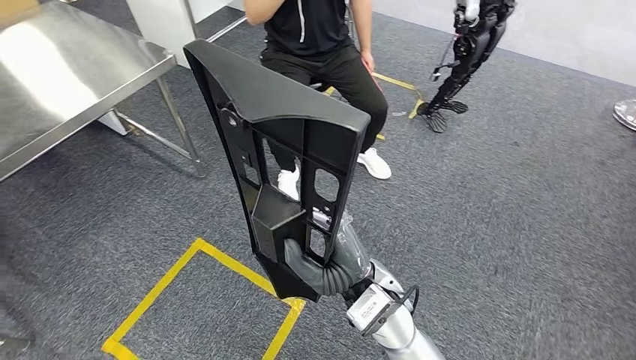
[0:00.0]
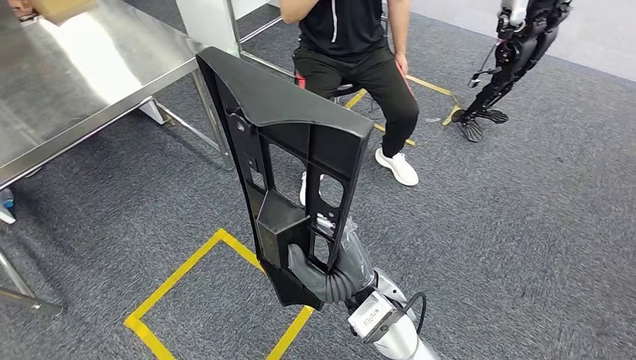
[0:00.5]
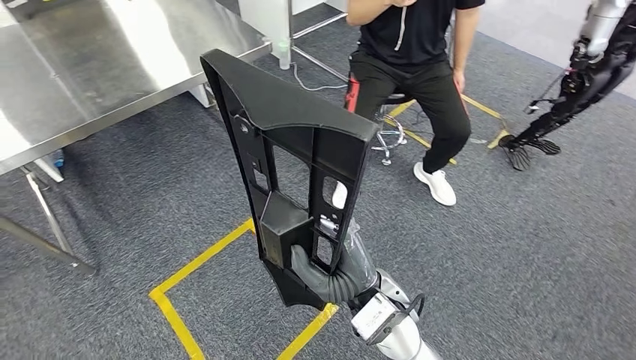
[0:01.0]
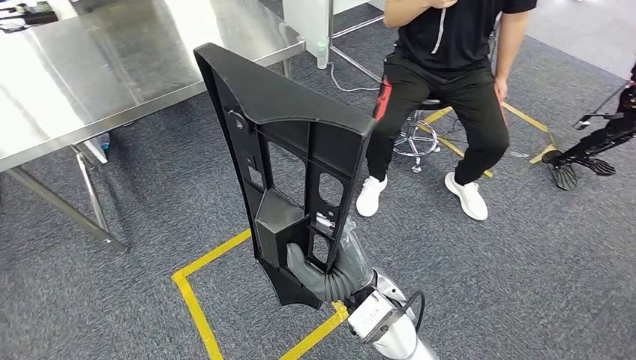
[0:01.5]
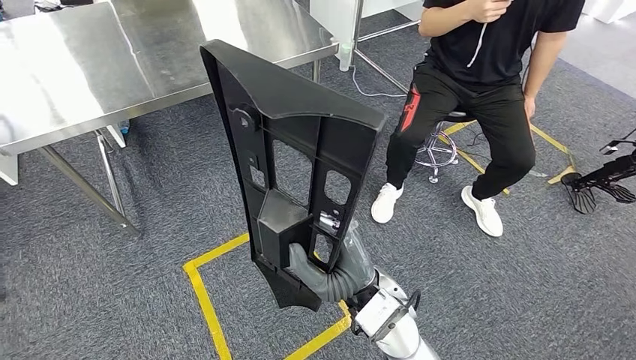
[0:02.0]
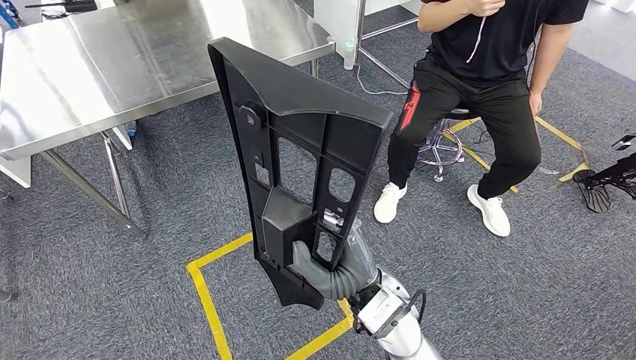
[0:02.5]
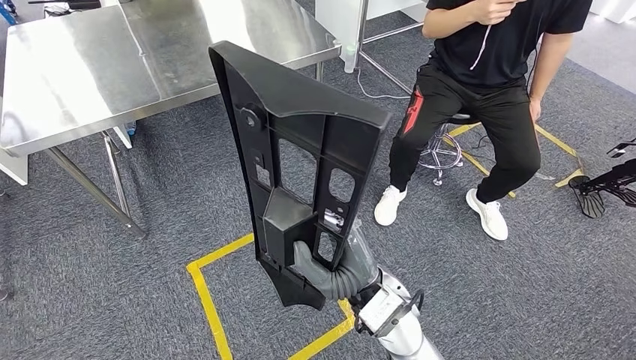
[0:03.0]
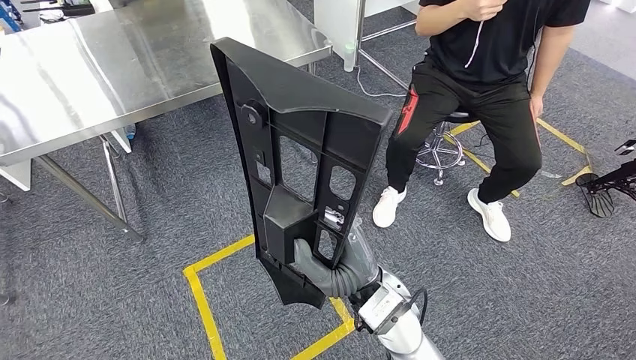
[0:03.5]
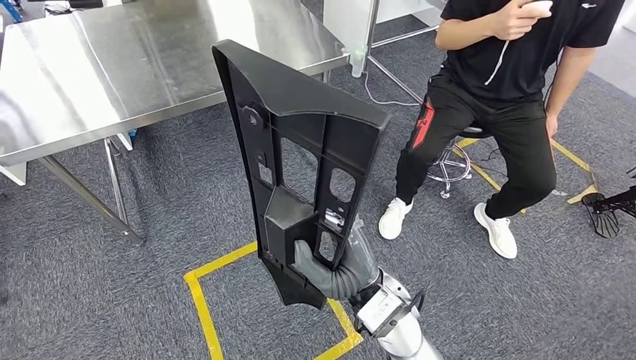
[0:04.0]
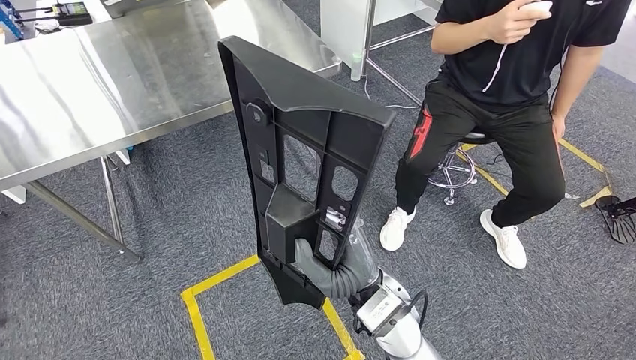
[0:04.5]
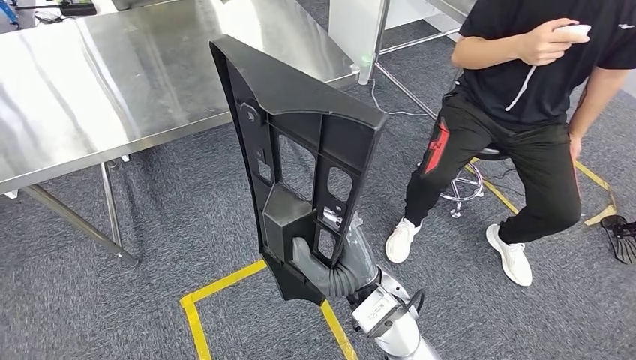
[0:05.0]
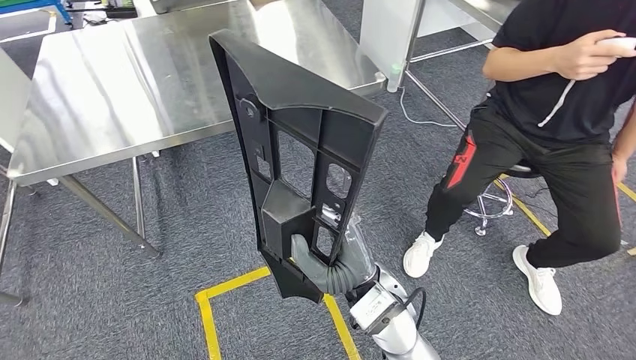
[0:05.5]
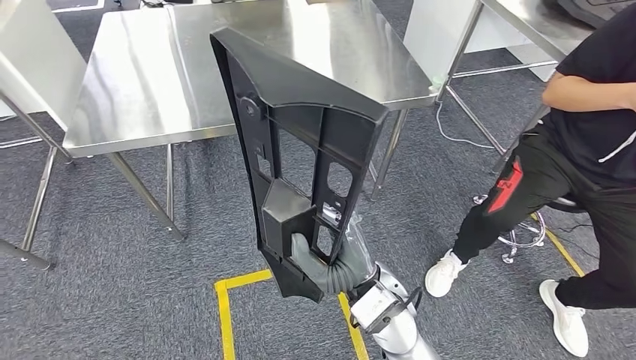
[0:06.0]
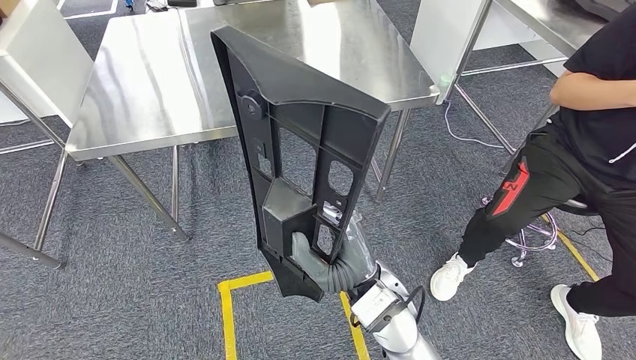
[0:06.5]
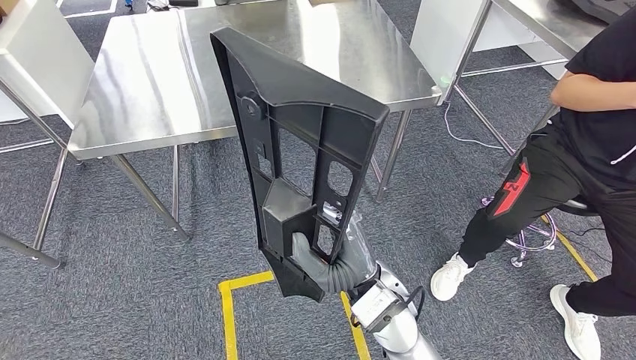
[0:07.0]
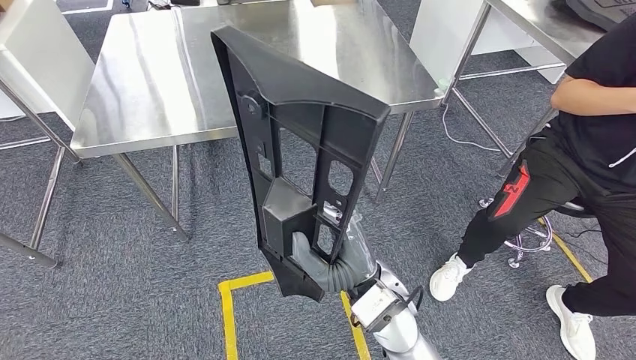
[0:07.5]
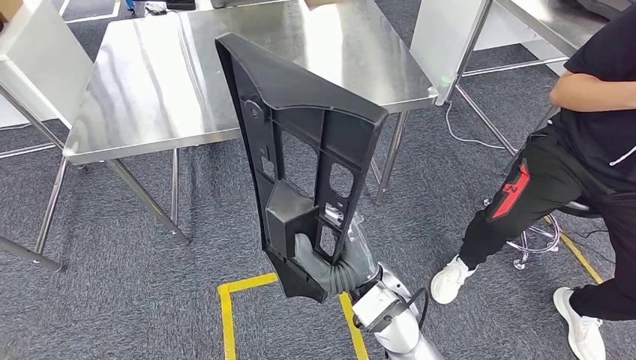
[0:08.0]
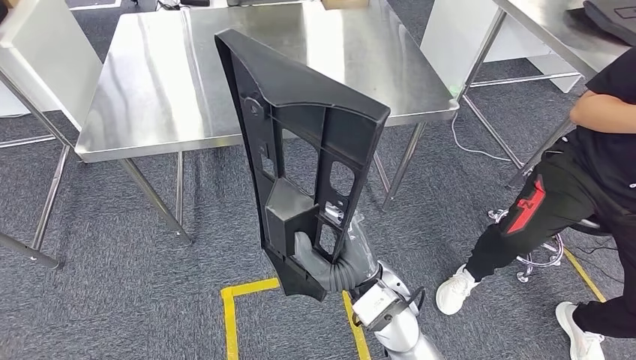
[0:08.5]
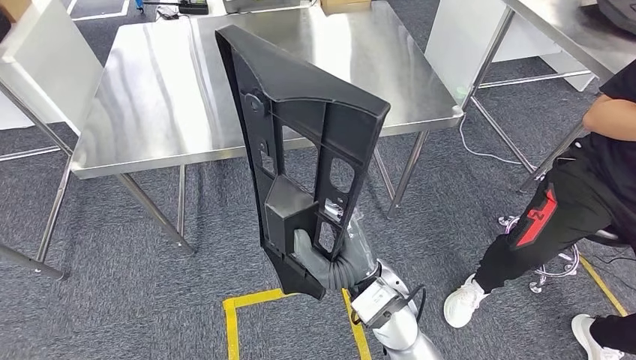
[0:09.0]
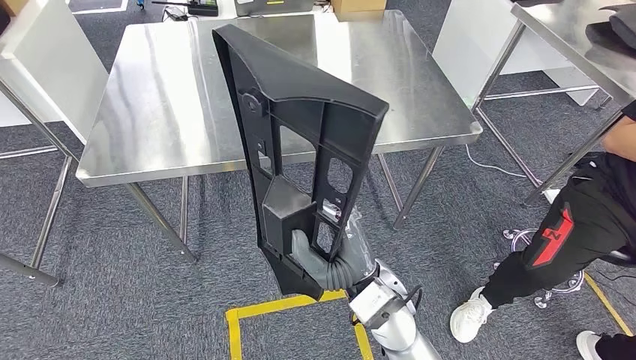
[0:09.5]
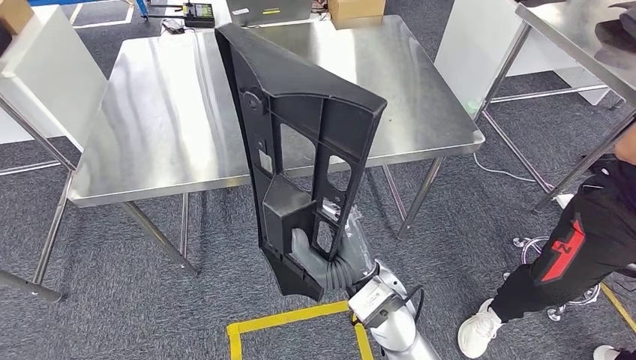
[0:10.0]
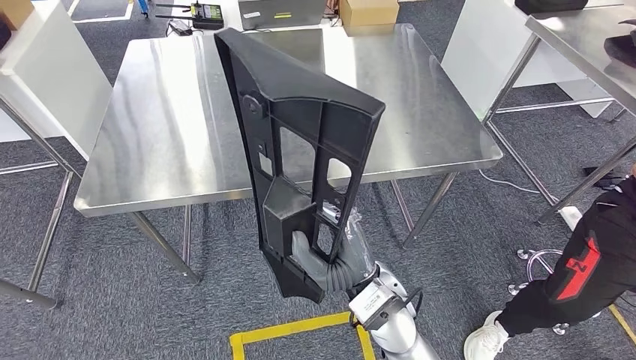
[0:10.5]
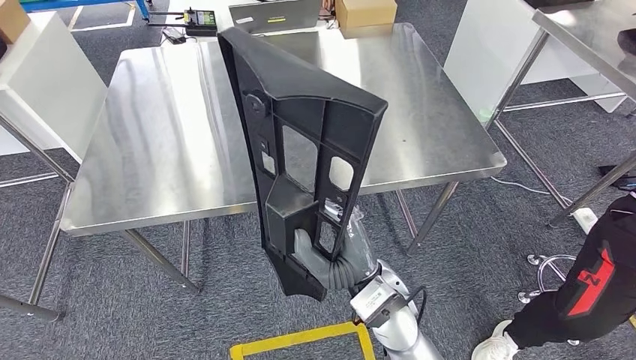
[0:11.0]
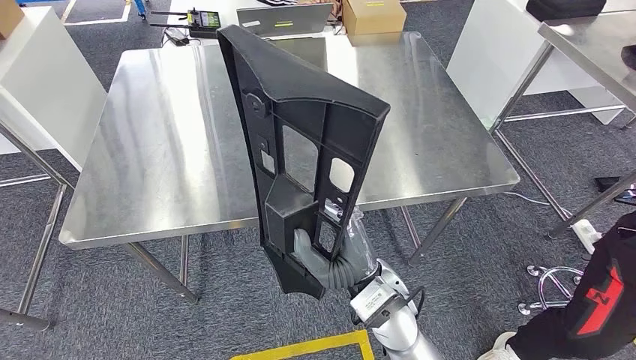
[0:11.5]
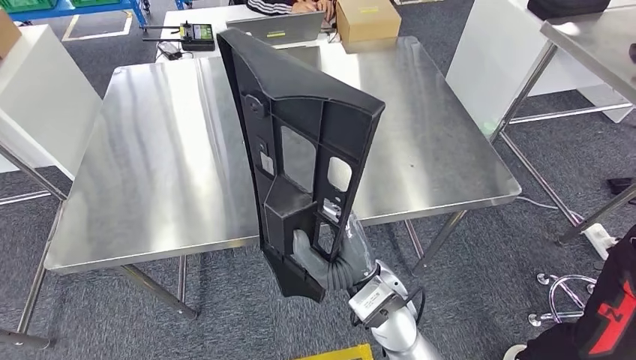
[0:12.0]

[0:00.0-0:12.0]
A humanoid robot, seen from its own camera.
Step, 0:00.0 to 0:09.0: Move the large material to the workbench.

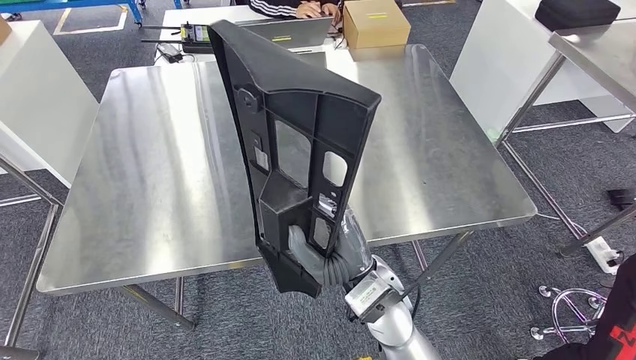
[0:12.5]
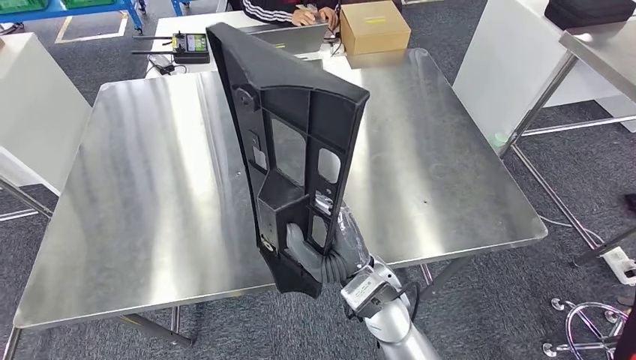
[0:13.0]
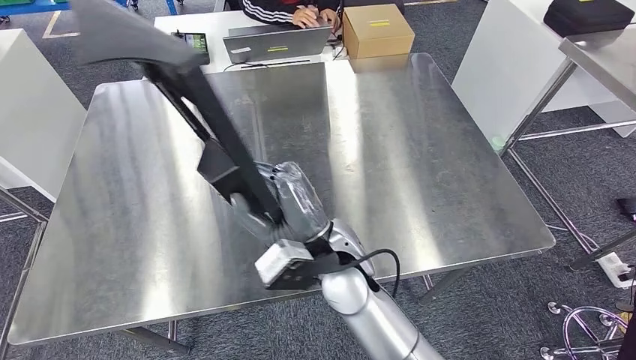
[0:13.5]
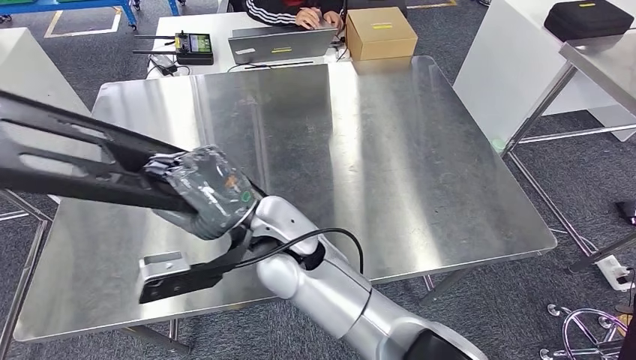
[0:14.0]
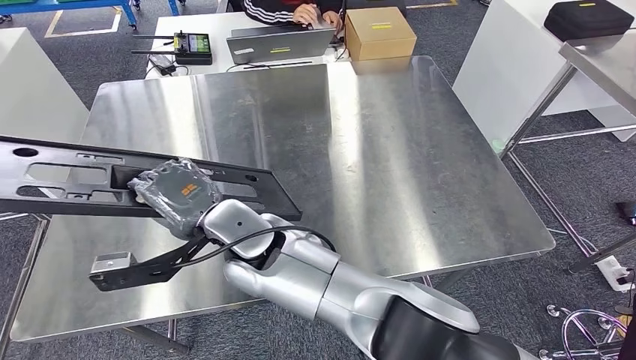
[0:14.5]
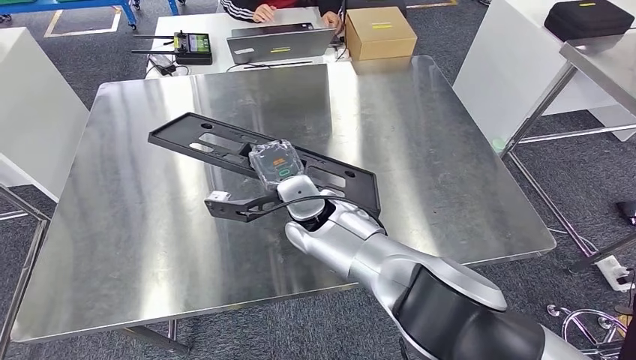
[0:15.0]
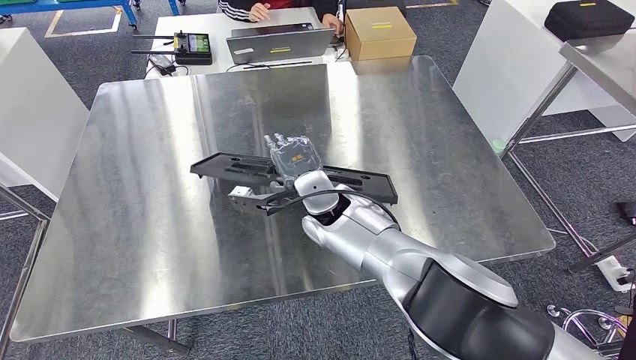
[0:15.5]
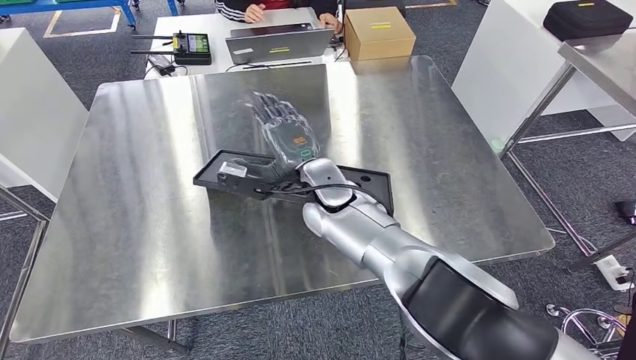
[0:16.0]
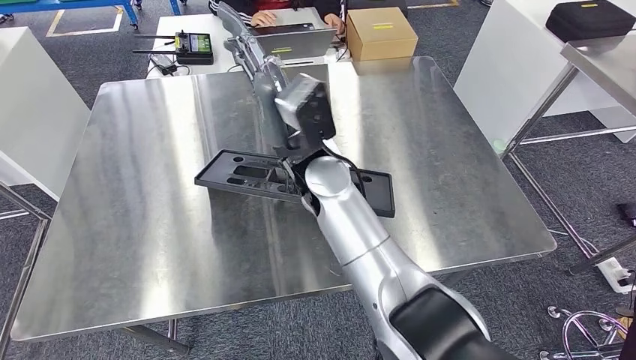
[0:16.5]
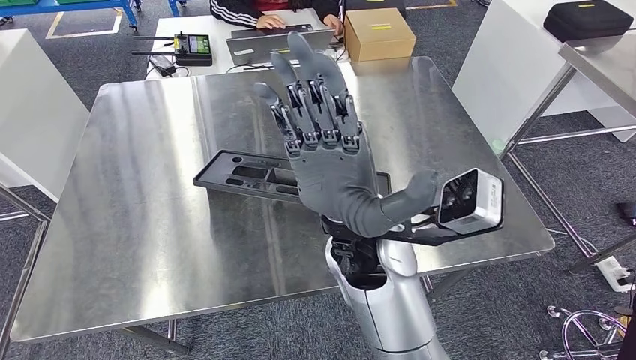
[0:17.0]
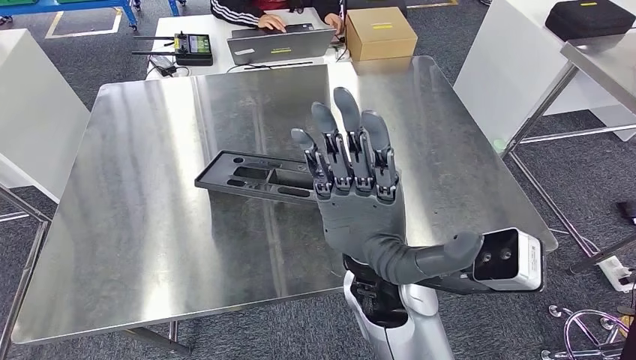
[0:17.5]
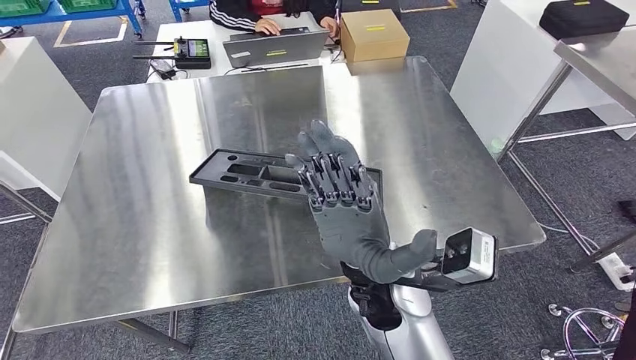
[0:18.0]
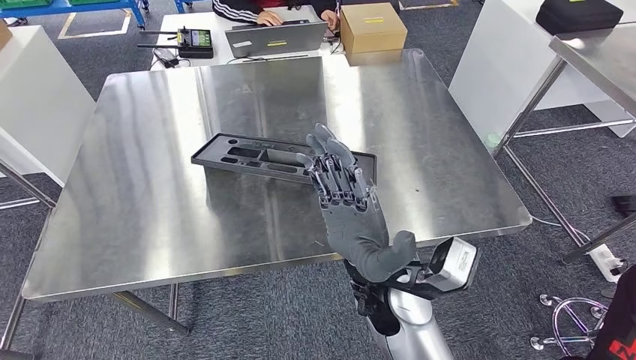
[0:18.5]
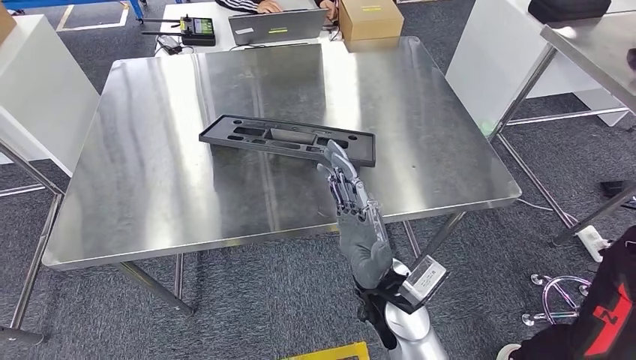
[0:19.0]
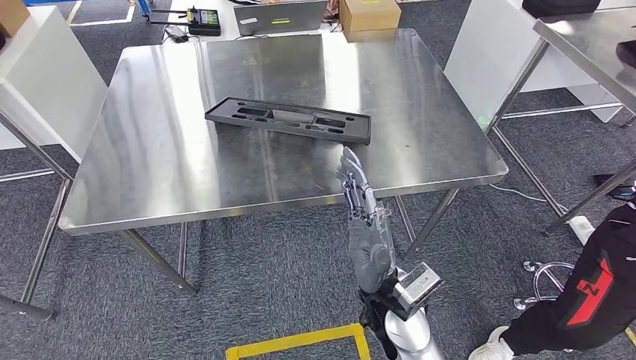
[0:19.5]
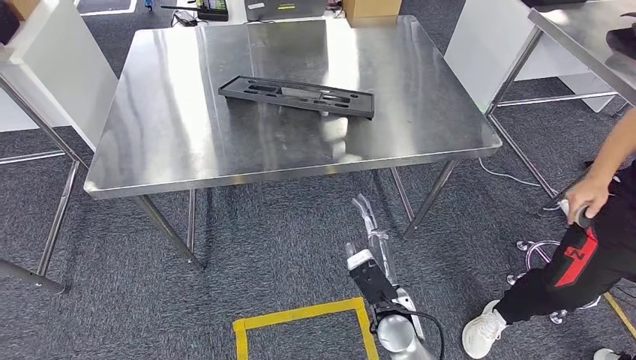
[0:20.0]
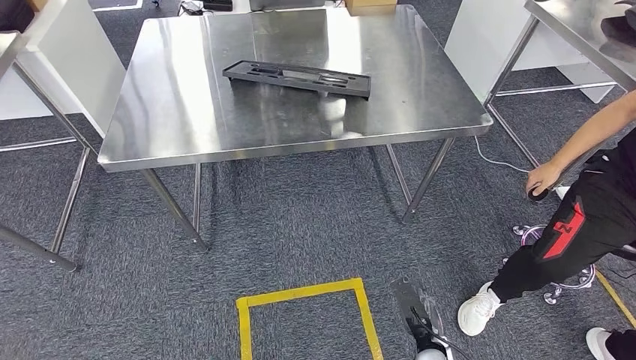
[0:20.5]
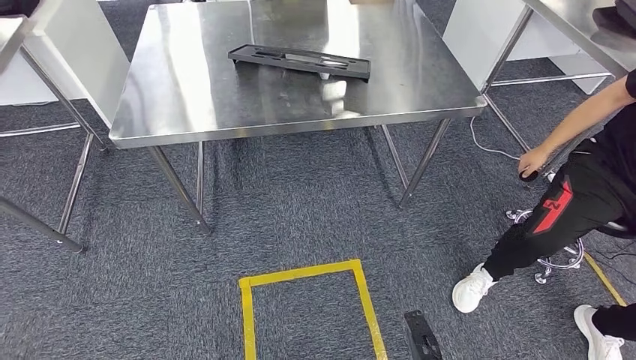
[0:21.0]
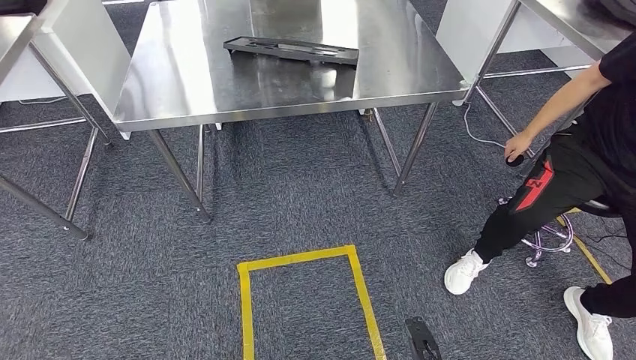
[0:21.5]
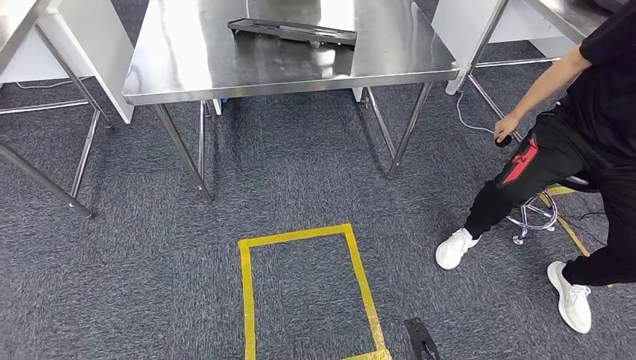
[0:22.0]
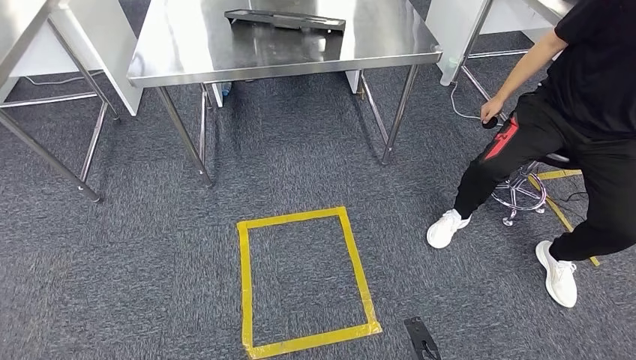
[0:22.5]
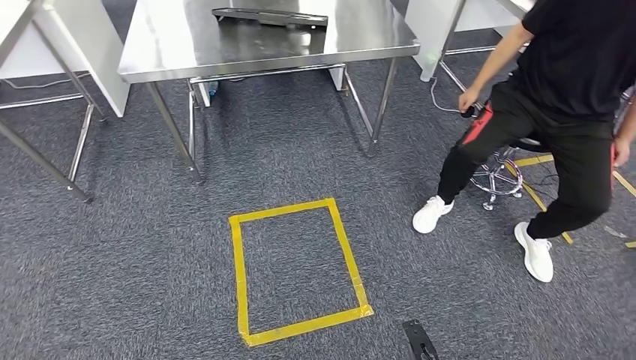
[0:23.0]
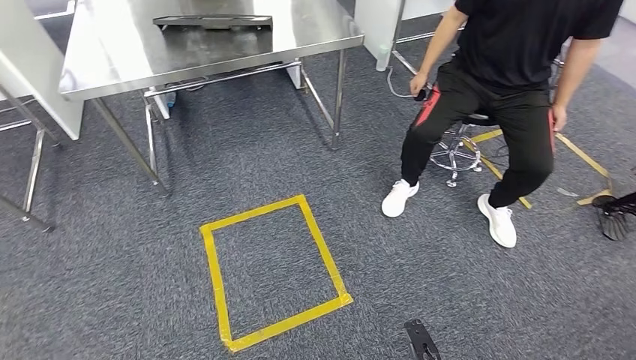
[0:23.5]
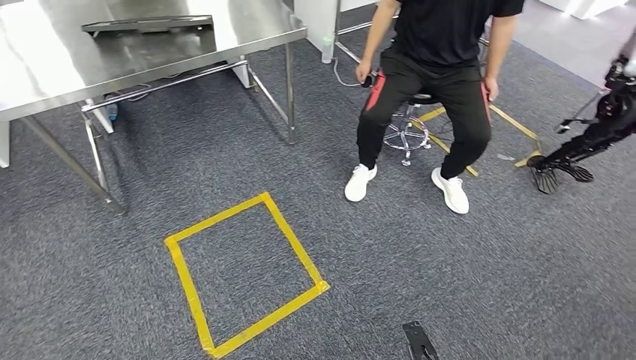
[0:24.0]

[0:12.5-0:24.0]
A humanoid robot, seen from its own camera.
Step, 0:12.5 to 0:21.5: Insert the large material into the corresponding slot on the workbench.
